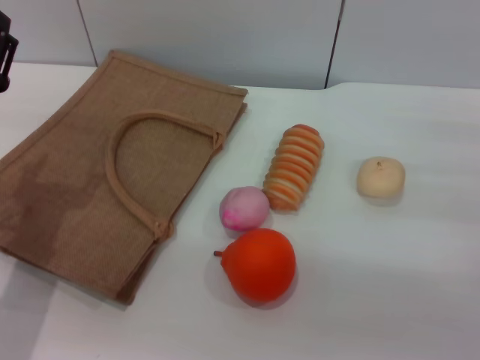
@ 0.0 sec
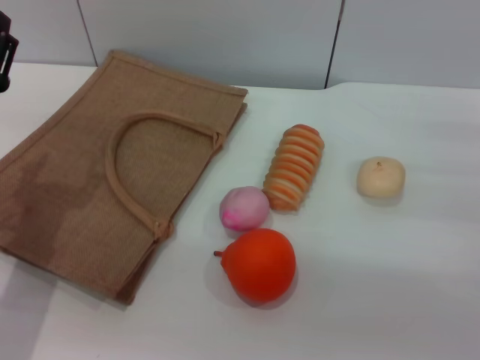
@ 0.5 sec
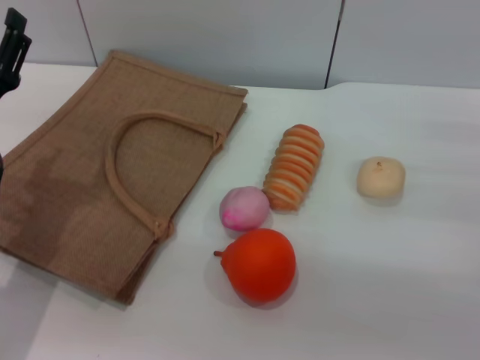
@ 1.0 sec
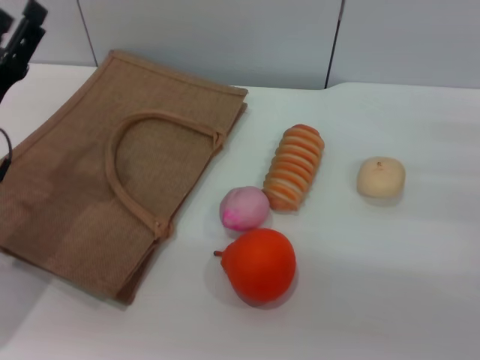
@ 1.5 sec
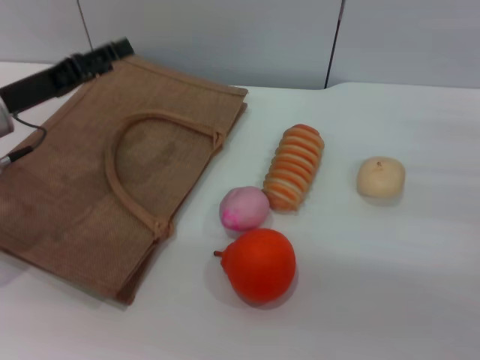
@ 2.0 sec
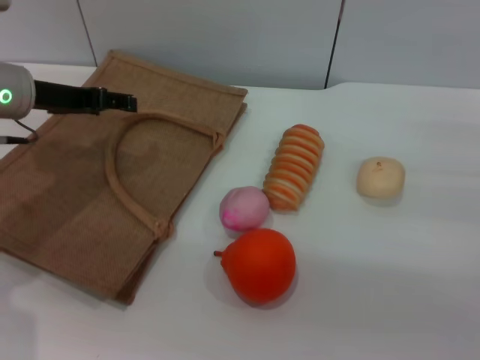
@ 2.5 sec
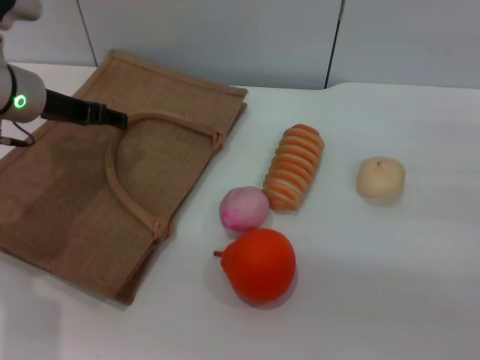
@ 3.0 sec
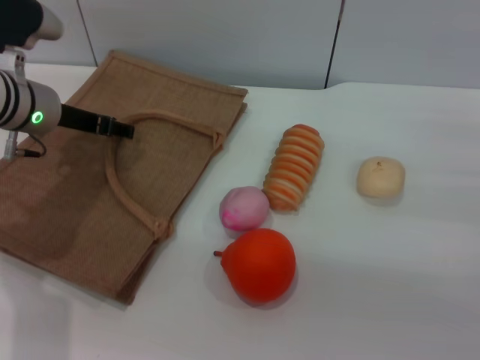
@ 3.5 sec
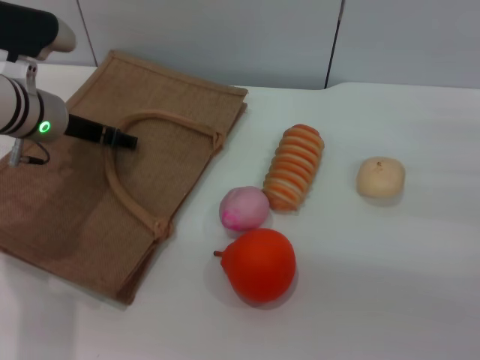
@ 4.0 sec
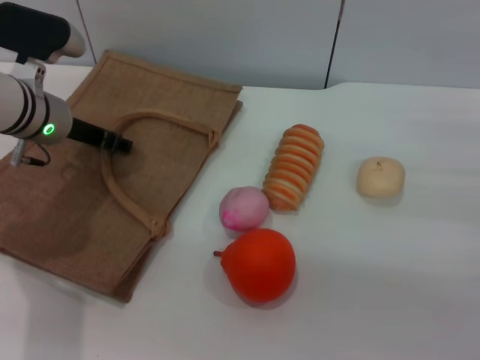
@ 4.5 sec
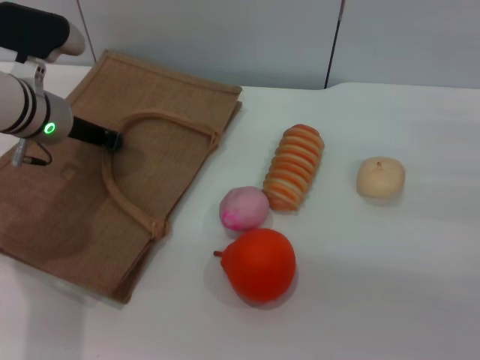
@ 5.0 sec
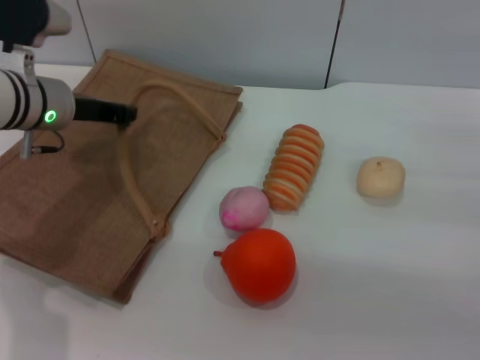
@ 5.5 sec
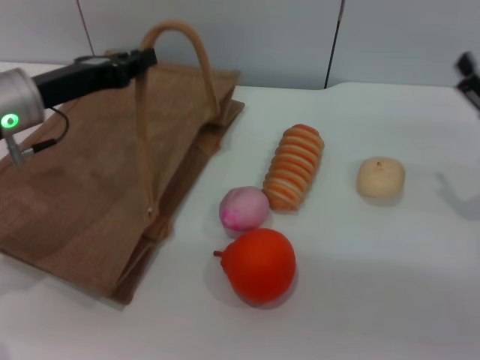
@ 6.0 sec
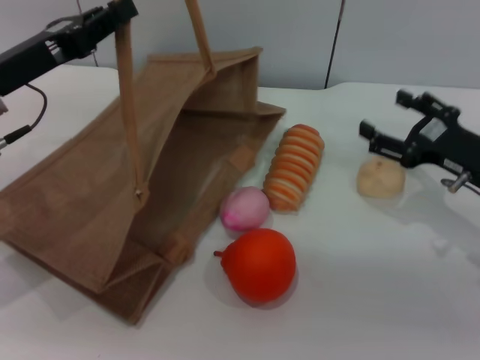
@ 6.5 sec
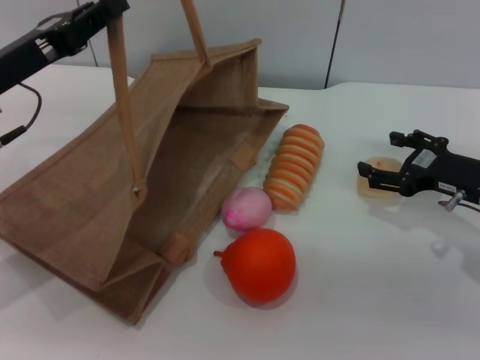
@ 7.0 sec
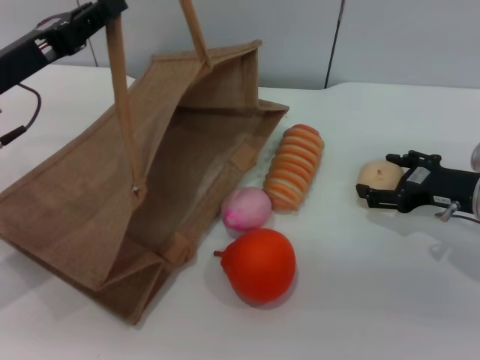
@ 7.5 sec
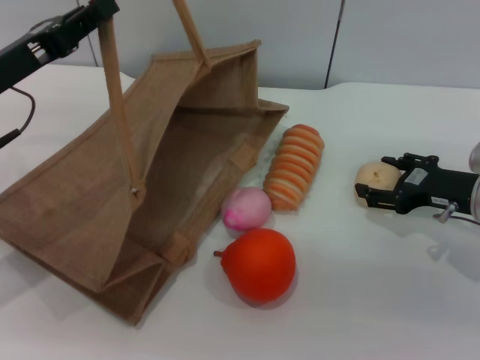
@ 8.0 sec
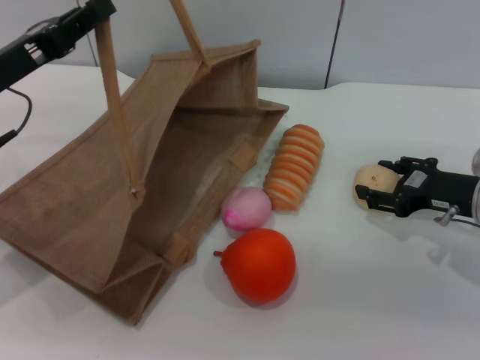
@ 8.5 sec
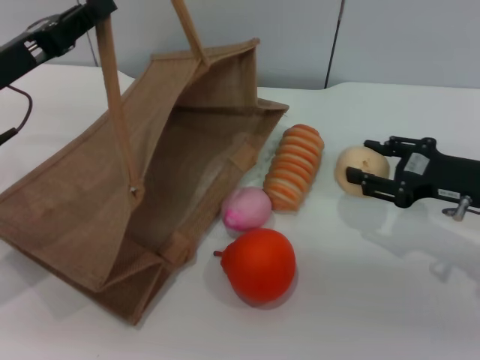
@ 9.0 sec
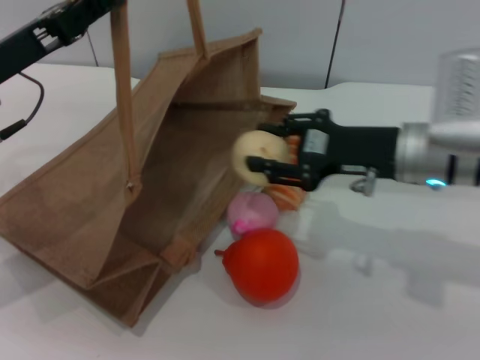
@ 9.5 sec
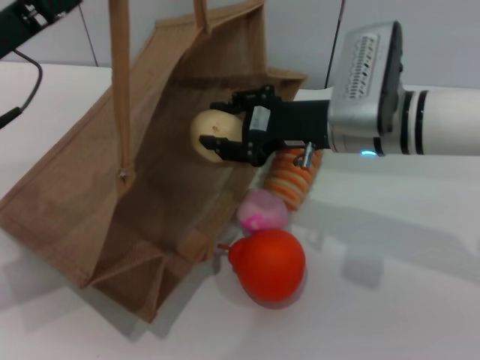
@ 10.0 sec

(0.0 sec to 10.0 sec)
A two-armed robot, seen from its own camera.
Task of the whole recording: pick up the egg yolk pastry from the table and place it in the brown handbag.
Step, 0.0 sec - 5.5 sec: Lift the woven bag with the left gripper to open it.
Step, 6.0 sec - 9.0 sec: Pick up the egg yolk pastry with the right gripper.
0.0 sec - 2.0 sec: The left gripper is displaced forward by about 10 cm.
2.0 sec - 4.0 sec: The left gripper travels forward by roughly 5 cm.
4.0 sec - 6.0 sec: The left gripper goes roughly 5 cm backward, and closes its fingers.
6.0 sec - 8.0 sec: The right gripper ends up roughly 5 cm from where it was.
8.0 sec - 10.0 sec: The right gripper is displaced to the left and upward by roughly 20 cm, and closes its fingers.

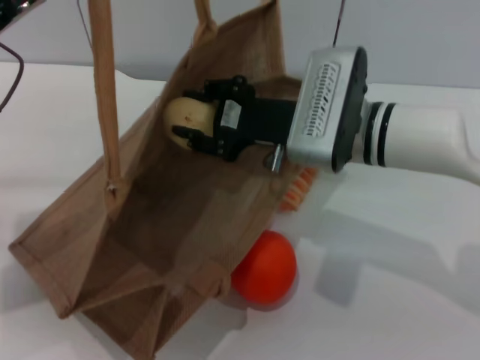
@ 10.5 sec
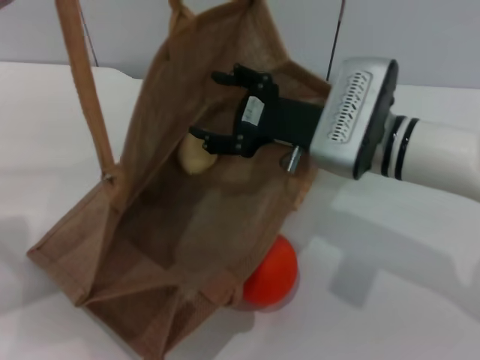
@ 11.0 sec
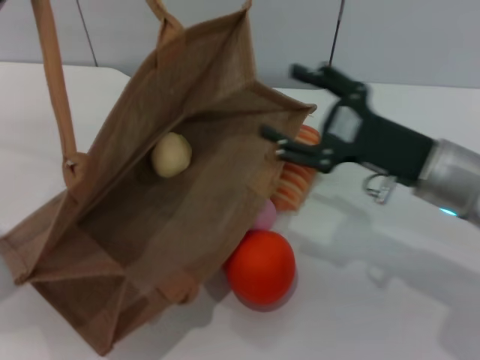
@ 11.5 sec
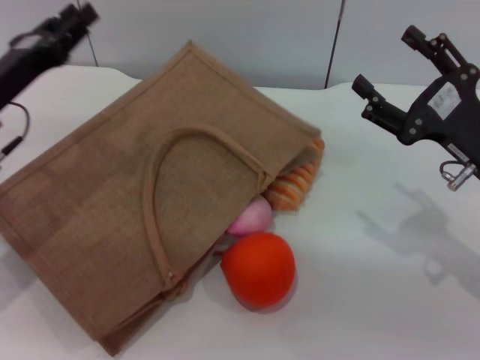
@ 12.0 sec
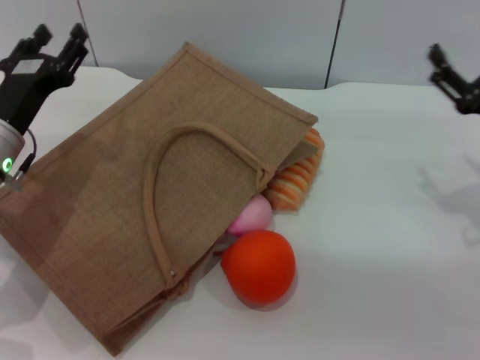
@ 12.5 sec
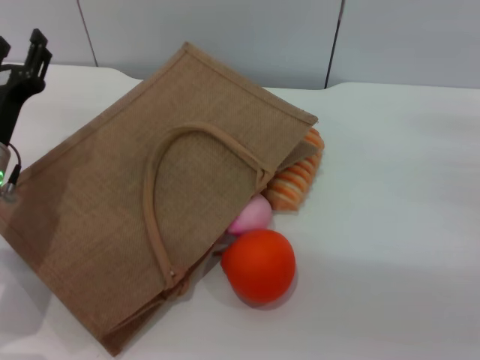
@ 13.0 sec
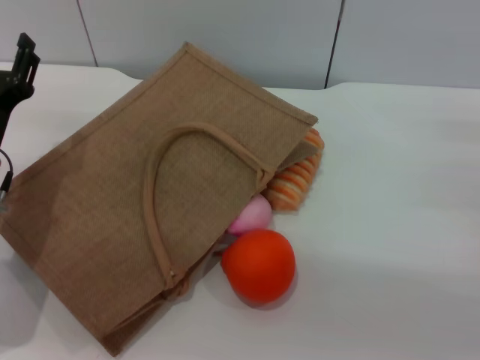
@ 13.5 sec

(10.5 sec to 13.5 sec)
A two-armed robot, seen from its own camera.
Task of the whole recording: pick up the egg yolk pastry from the table and place it in the brown handbag.
10.5 sec - 12.0 sec: The left gripper travels downward by roughly 10 cm; the right gripper moves to the right and backward, approximately 20 cm, and opens.
12.0 sec - 13.5 sec: The left gripper goes approximately 5 cm downward, and opens. Meanwhile the right gripper heads to the right, covering some 10 cm.
